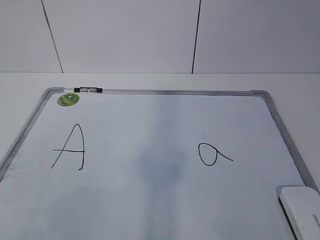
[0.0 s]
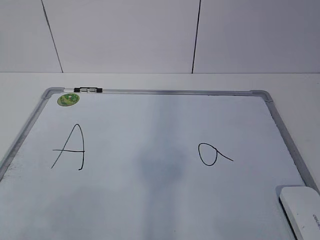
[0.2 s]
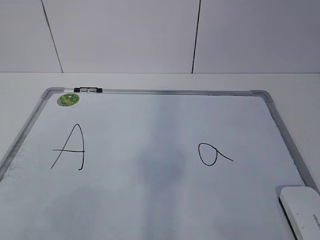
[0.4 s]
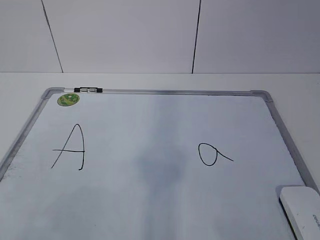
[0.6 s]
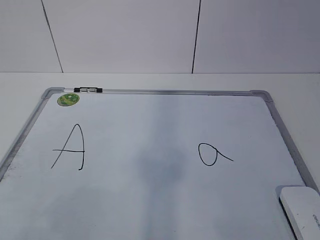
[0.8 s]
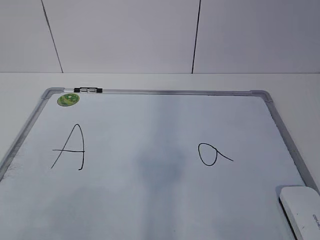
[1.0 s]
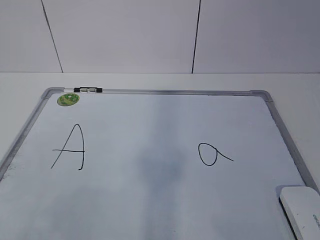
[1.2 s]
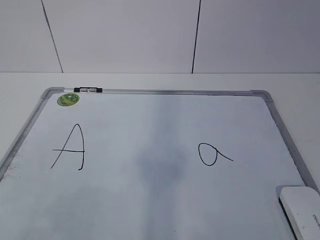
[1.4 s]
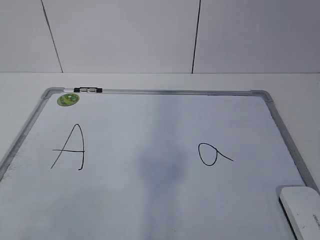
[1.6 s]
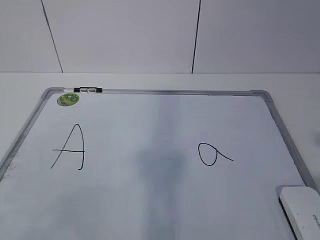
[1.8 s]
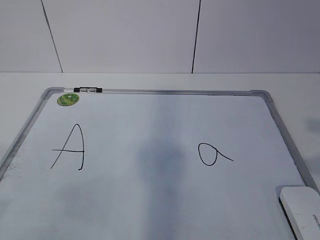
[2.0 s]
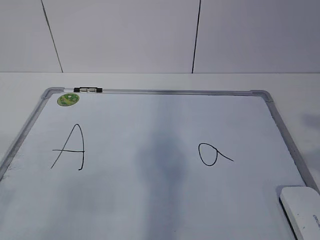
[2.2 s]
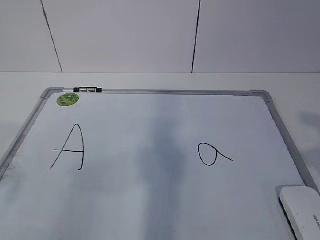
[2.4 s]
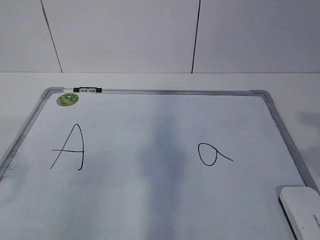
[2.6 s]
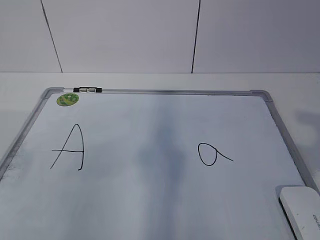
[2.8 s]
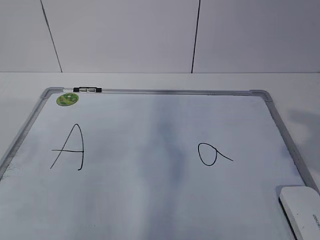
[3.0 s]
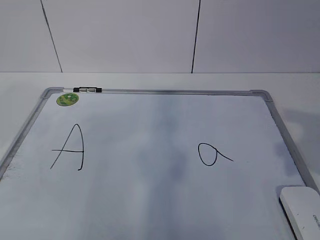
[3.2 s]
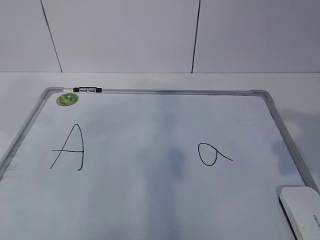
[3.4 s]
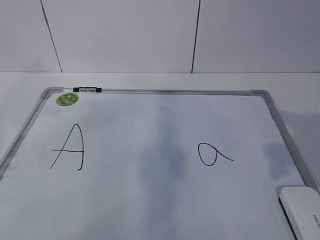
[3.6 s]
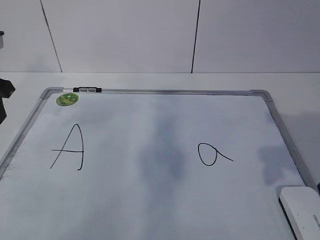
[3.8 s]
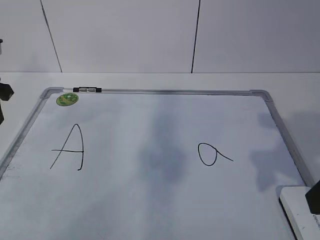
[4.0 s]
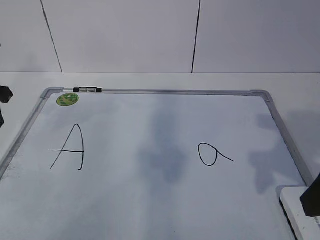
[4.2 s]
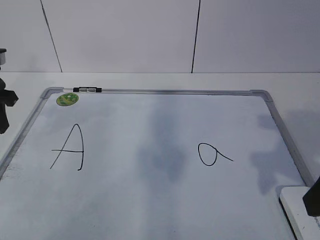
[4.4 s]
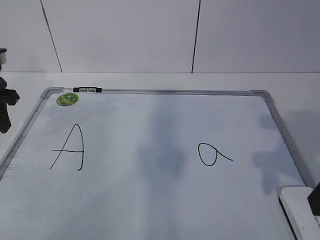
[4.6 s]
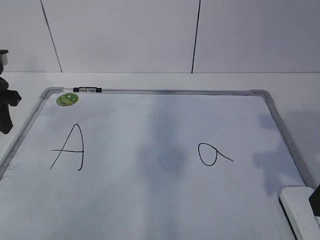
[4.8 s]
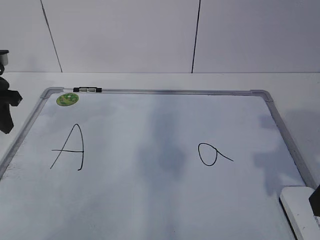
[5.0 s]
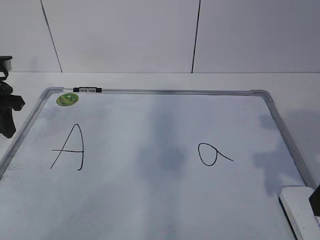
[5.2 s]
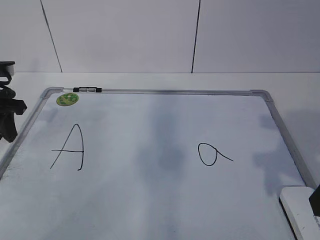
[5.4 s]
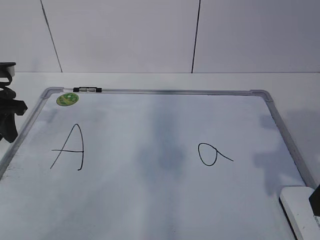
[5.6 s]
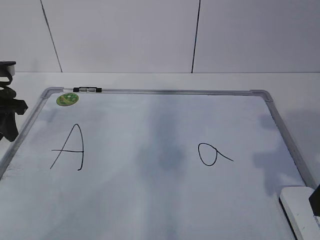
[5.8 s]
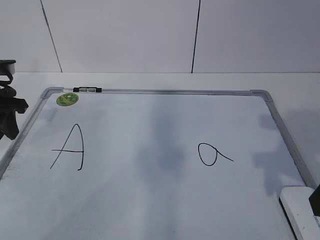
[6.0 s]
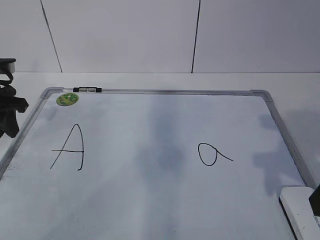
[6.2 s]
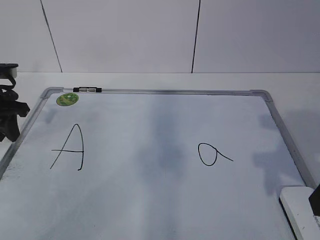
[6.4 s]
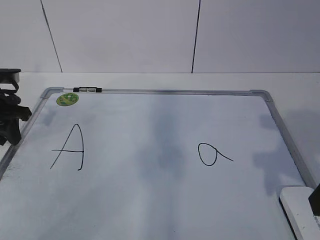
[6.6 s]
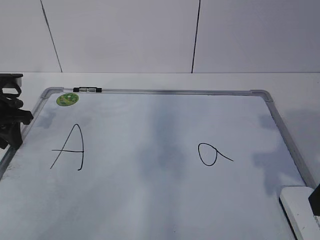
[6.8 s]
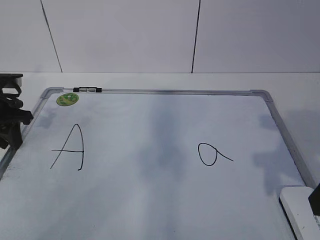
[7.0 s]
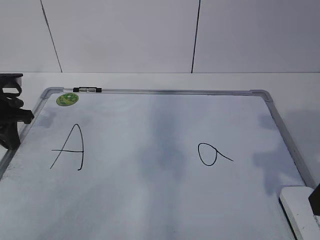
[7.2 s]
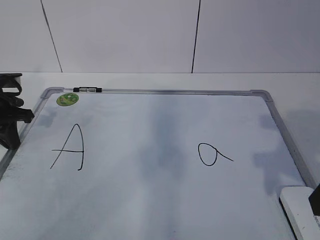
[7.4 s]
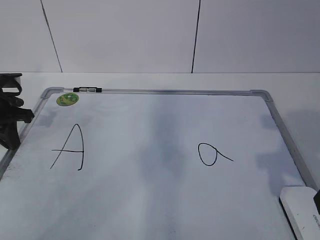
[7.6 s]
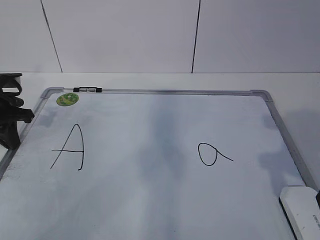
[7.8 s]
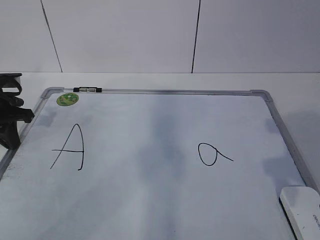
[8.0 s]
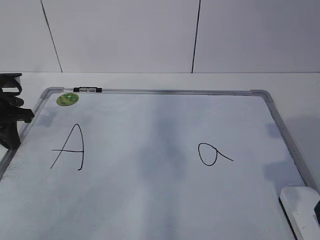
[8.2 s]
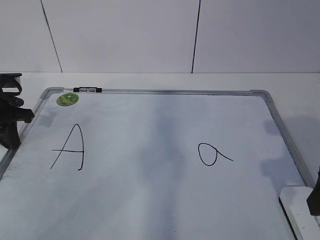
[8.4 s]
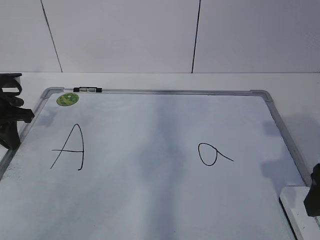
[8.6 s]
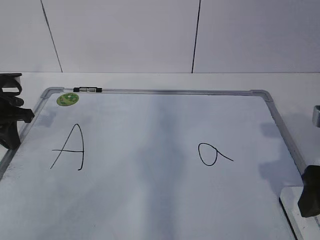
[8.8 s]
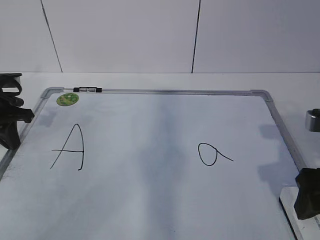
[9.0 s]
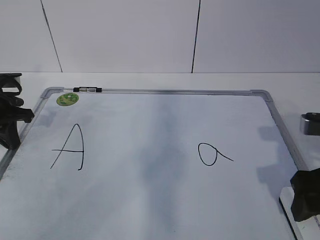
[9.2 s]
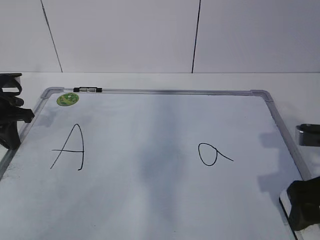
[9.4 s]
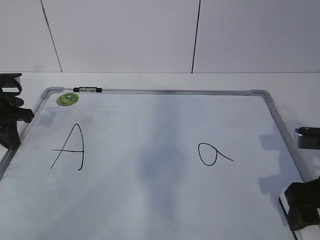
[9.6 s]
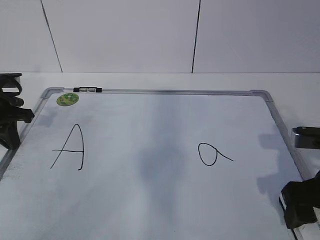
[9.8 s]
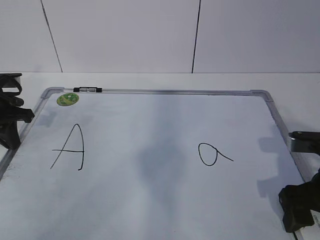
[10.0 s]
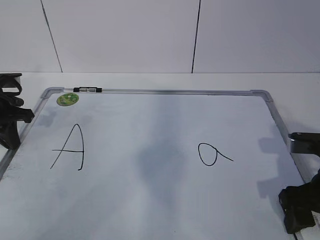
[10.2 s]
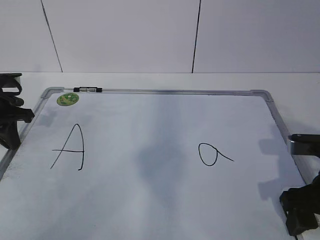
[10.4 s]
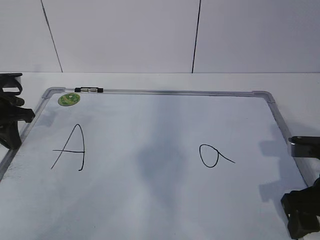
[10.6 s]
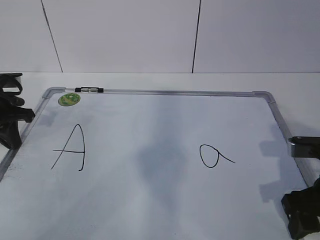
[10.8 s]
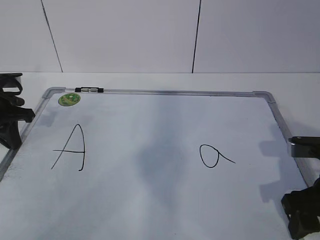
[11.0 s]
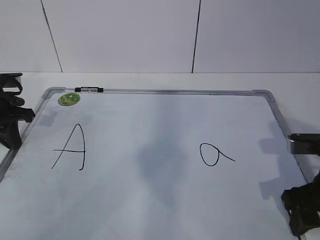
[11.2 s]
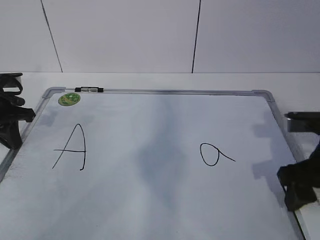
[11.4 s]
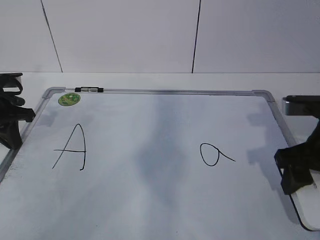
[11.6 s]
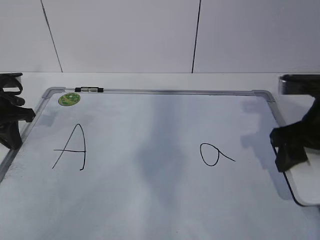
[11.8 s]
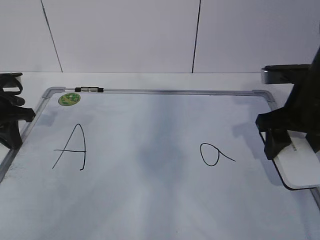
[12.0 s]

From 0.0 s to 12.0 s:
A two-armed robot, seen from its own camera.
Task of the whole recording: pick up the eraser on the blackboard and erase the letter "a".
Step, from 6.2 s to 8.6 s: Grab the eraser with your right hand.
From 3.0 s to 4.4 s: The right gripper moves some 5 cm. Meanwhile the left gripper heads forward and downward, covering approximately 20 cm.
From 4.4 s to 6.0 s: The grippers make only small movements.
From 6.0 s to 7.6 s: The left gripper closes up.
From 7.6 s to 9.0 s: The right gripper moves downward, approximately 5 cm.
From 9.0 s to 10.4 s: The right gripper moves downward, about 5 cm.
From 10.4 s to 12.0 s: The right gripper goes approximately 10 cm forward and upward.

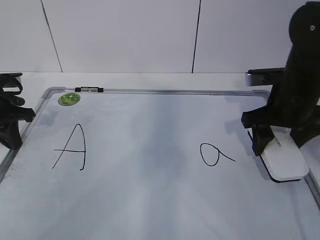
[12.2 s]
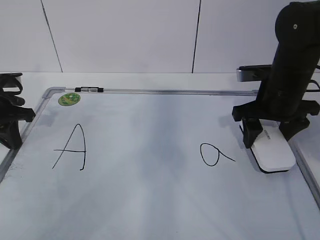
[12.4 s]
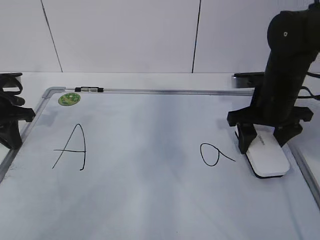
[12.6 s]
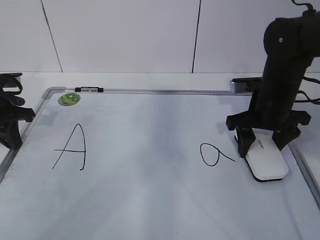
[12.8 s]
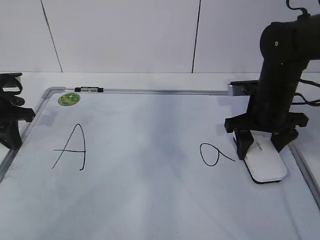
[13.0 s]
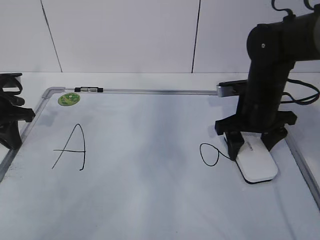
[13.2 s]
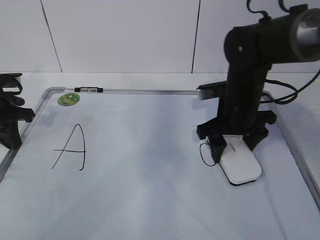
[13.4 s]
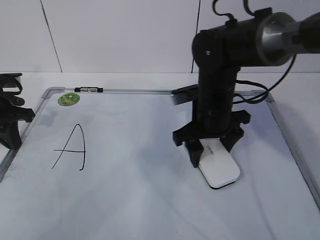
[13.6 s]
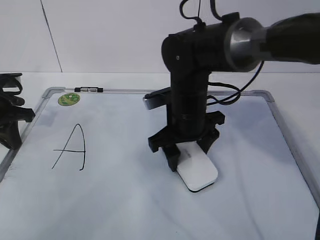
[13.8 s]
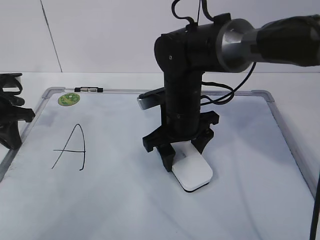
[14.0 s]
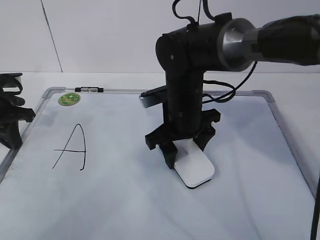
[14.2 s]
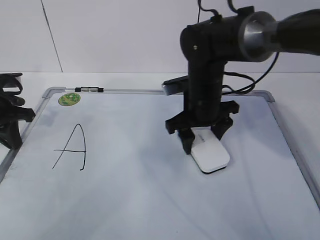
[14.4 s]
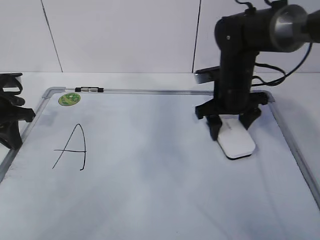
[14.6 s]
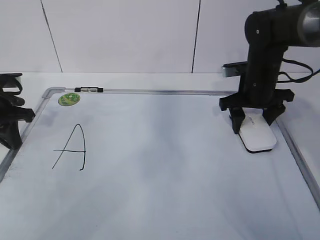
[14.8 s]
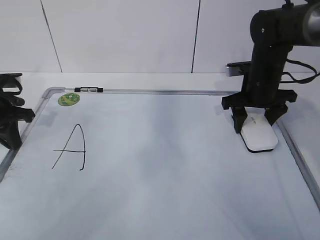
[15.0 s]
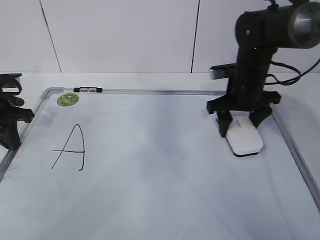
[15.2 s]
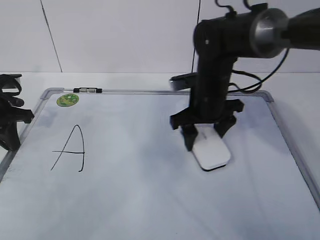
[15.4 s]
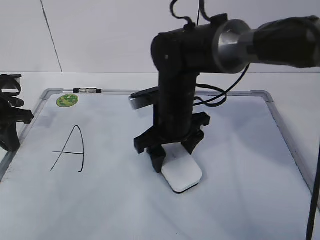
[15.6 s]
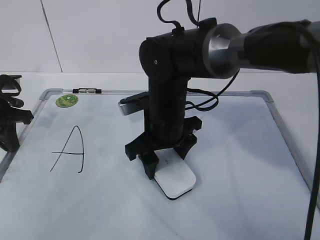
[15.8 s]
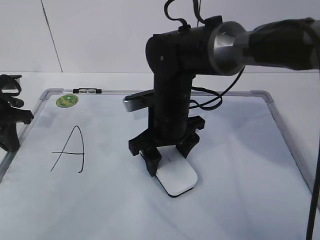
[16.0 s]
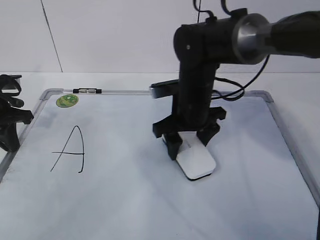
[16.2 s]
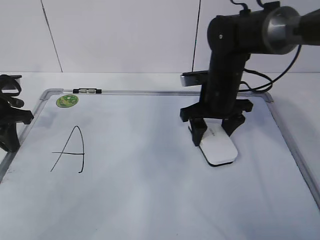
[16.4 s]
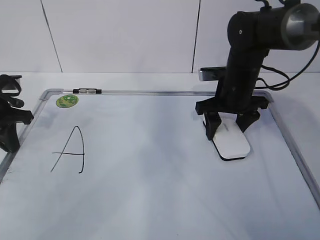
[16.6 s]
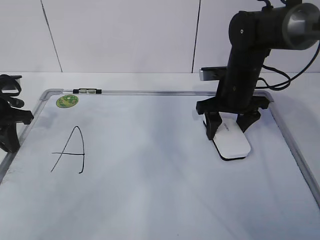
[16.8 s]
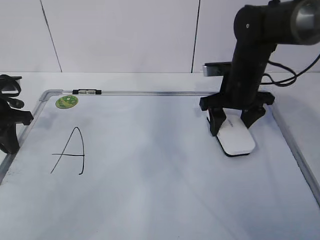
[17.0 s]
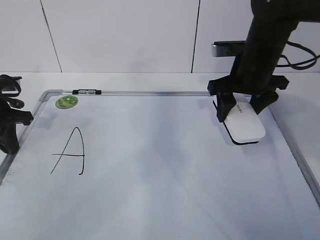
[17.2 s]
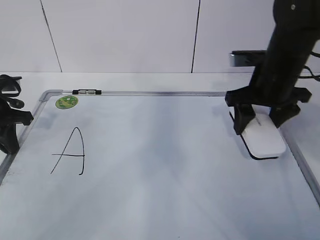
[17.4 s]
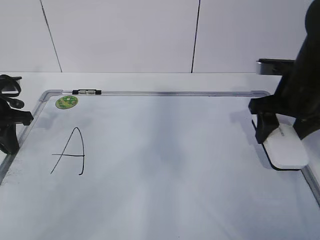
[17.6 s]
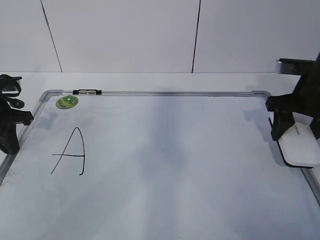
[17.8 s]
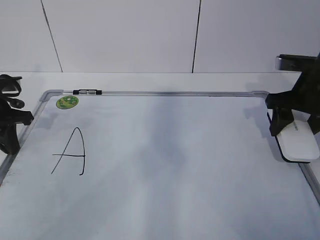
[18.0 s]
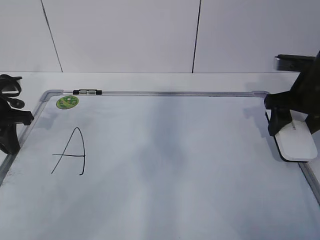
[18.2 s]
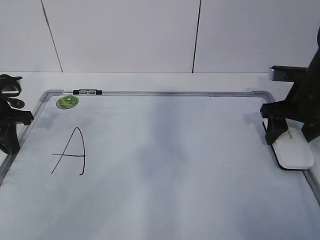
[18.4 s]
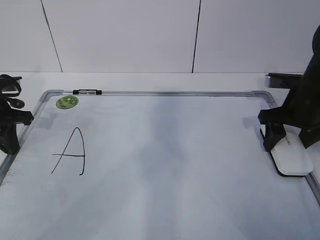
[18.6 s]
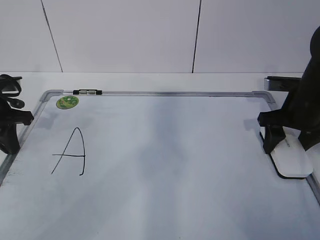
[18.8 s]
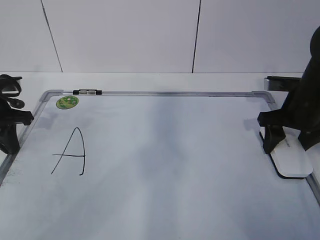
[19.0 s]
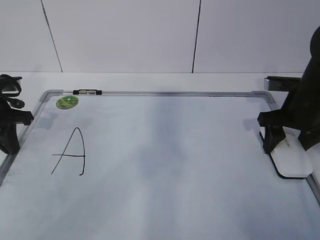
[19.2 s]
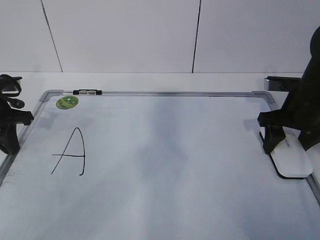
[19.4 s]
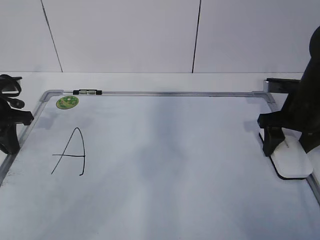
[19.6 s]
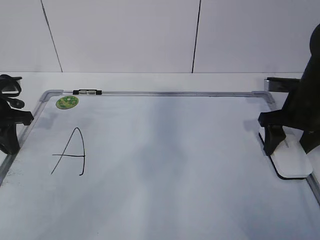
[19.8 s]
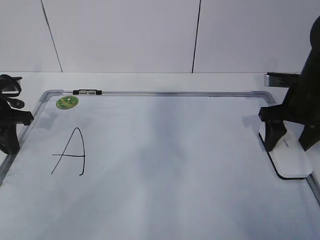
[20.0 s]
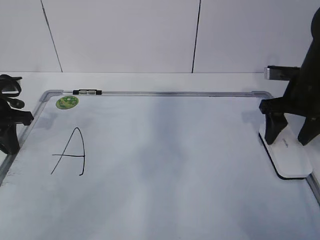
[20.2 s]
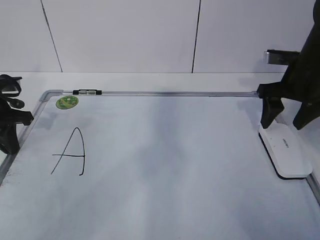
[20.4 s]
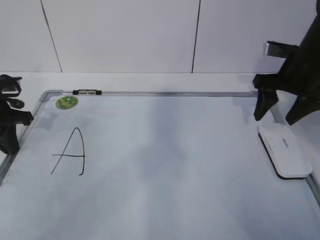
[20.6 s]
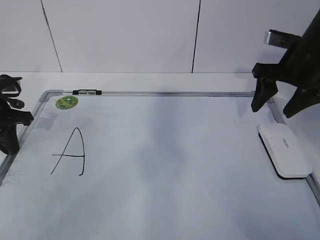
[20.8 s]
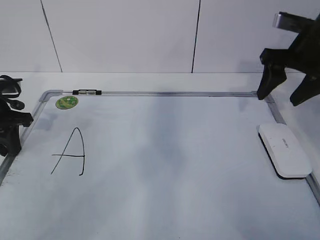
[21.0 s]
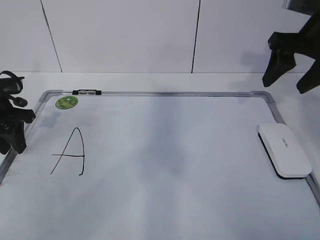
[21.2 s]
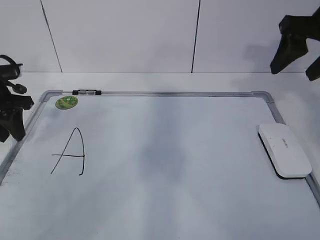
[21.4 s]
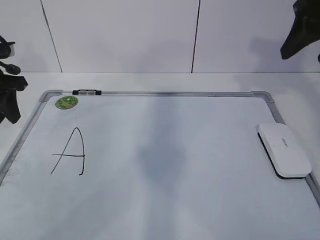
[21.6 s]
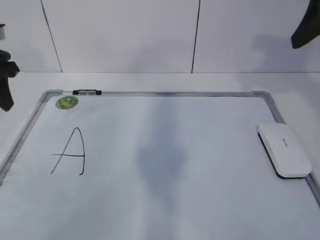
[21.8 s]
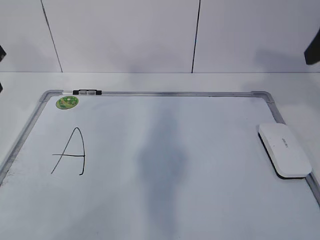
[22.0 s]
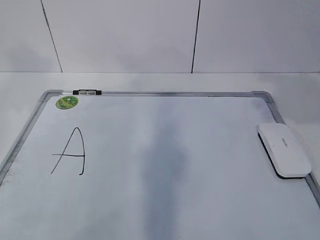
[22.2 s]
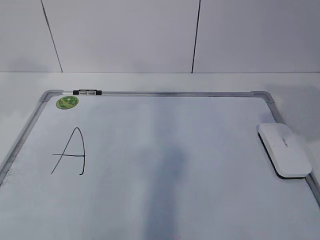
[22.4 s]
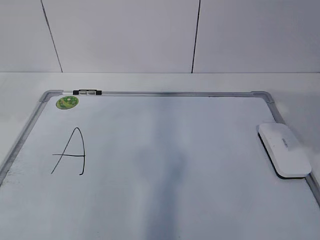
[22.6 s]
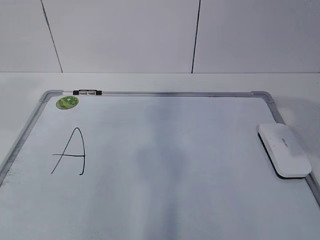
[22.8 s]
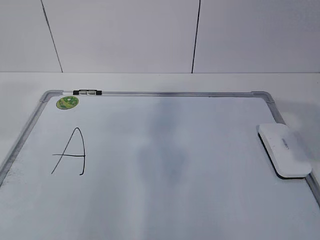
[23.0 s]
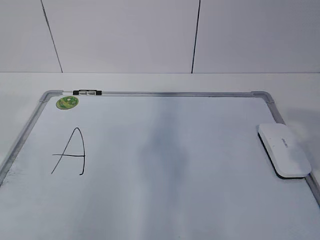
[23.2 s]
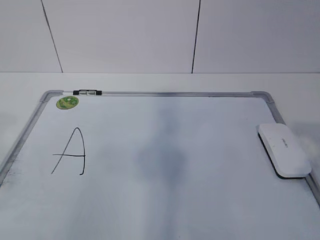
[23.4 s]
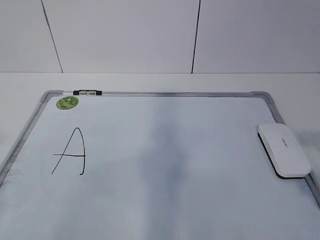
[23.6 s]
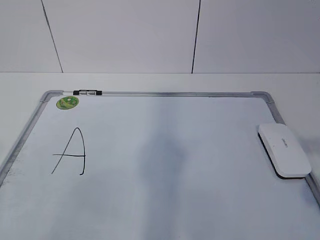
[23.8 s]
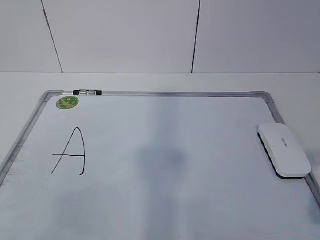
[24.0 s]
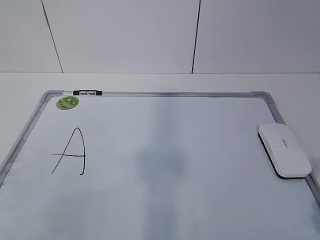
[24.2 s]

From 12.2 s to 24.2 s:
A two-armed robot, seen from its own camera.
Task of the whole recording: pick up the eraser on the blackboard and erase the letter "a".
Step, from 14.2 s to 16.2 s: Put down the eraser with your right hand.
From 12.2 s to 13.8 s: The right gripper shifts approximately 15 cm to the left.
From 13.8 s to 15.2 s: The right gripper shifts about 15 cm to the right and forward.
From 15.2 s to 16.6 s: The right gripper travels to the left and back again, approximately 15 cm each way.
From 16.6 s to 18.2 s: The right gripper is displaced to the right and backward by about 10 cm.
From 18.2 s to 19.8 s: The grippers stay close to where they were, moving slightly.
From 19.8 s to 21.2 s: The left gripper opens. The right gripper is displaced upward by approximately 15 cm.
From 21.2 s to 22.6 s: The left gripper moves upward and backward, roughly 25 cm; the right gripper shifts some 20 cm backward.
From 22.6 s to 24.2 s: The grippers both shift backward by approximately 20 cm.
